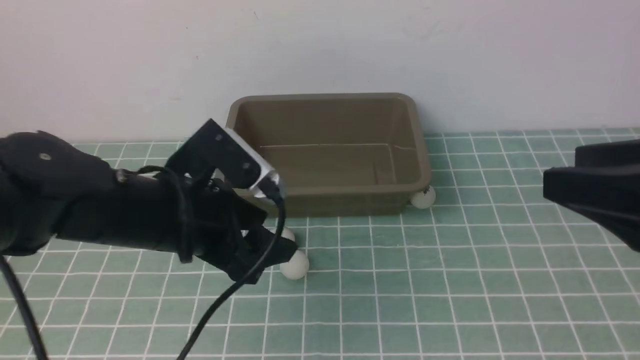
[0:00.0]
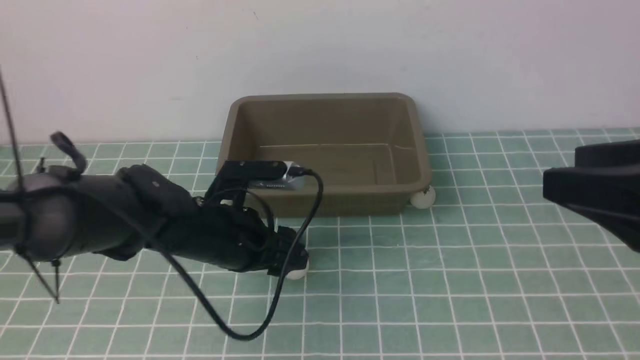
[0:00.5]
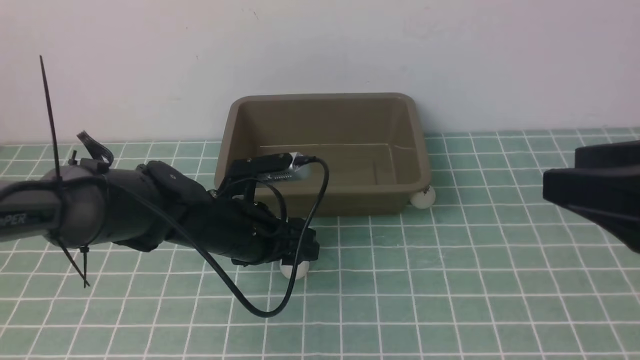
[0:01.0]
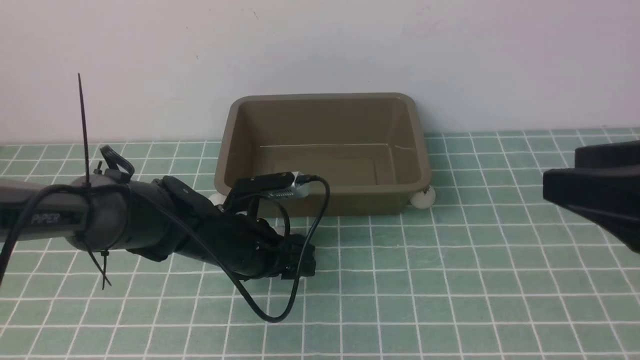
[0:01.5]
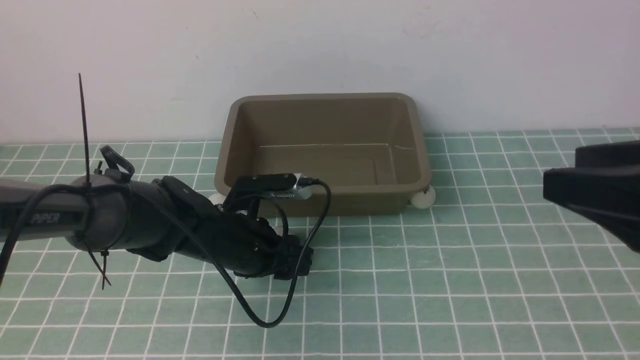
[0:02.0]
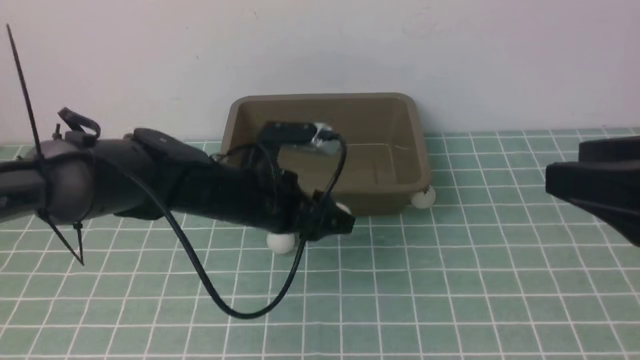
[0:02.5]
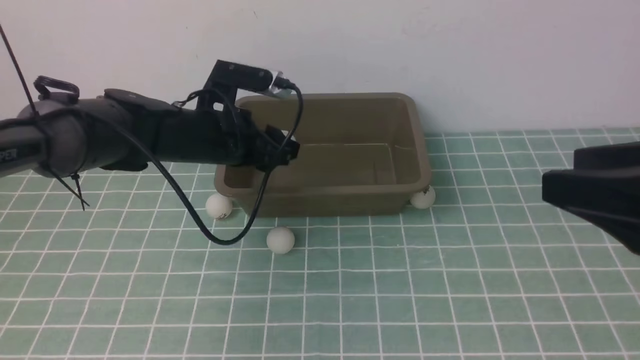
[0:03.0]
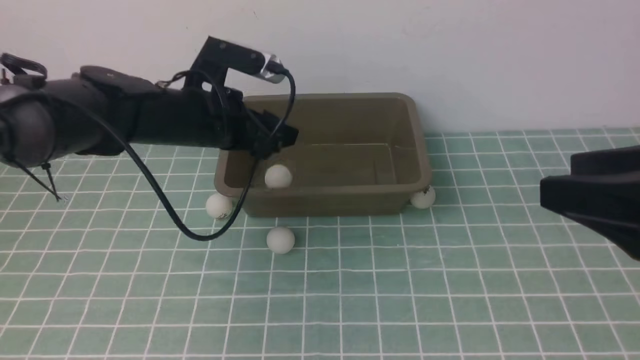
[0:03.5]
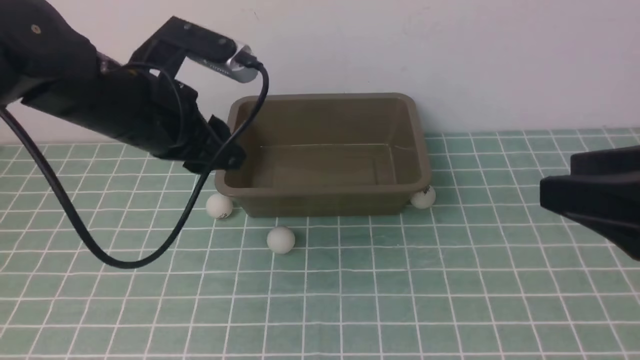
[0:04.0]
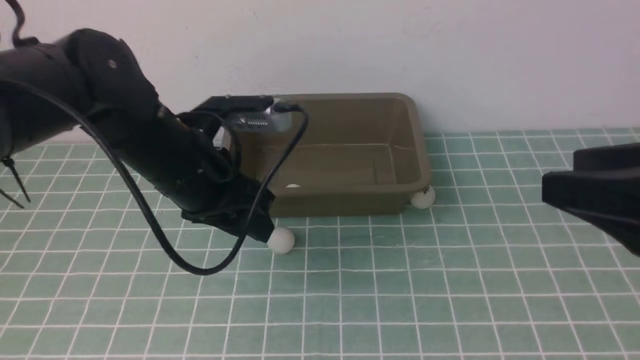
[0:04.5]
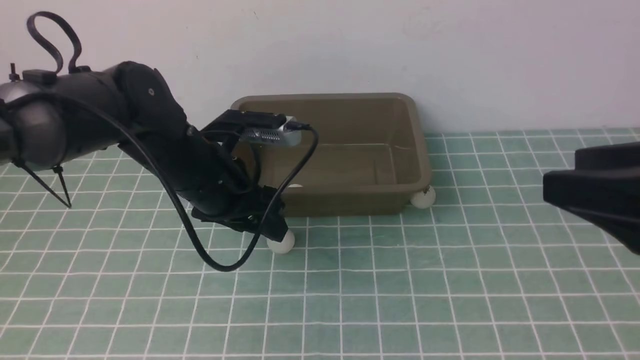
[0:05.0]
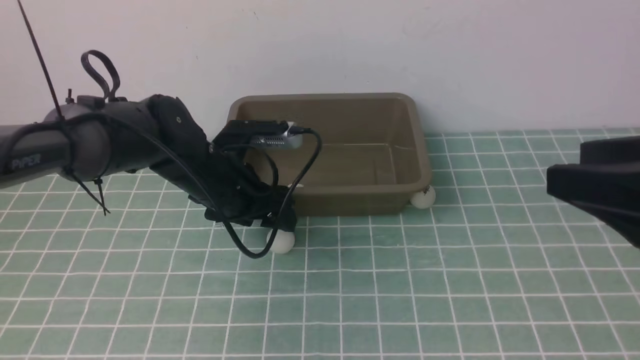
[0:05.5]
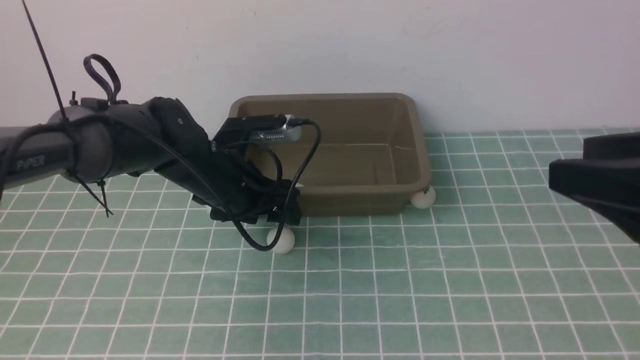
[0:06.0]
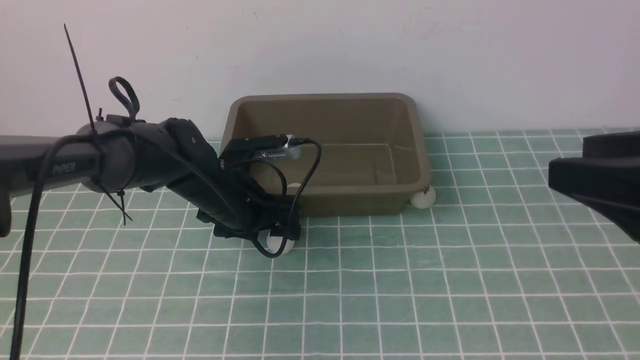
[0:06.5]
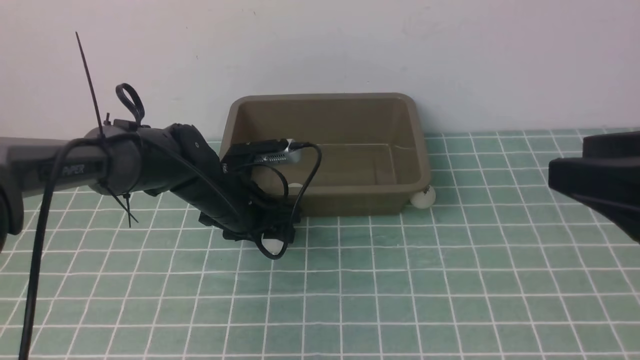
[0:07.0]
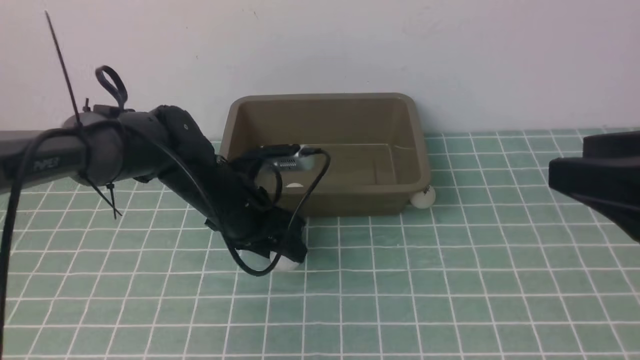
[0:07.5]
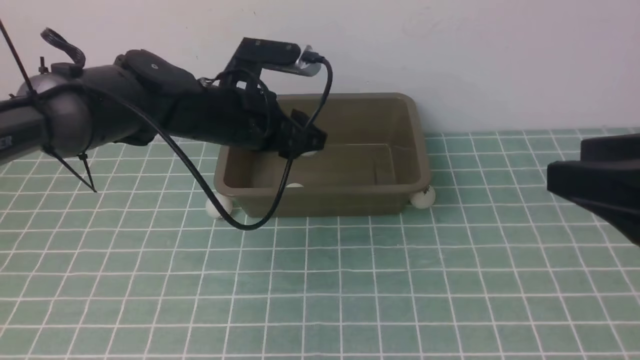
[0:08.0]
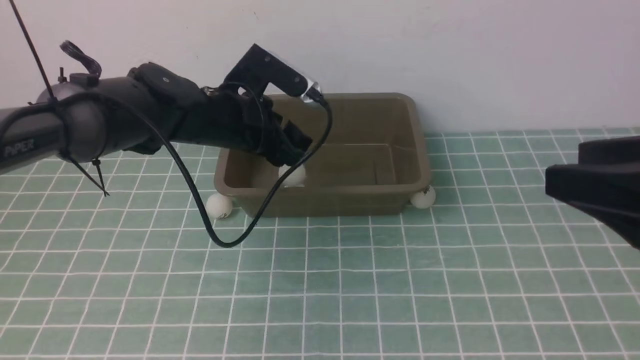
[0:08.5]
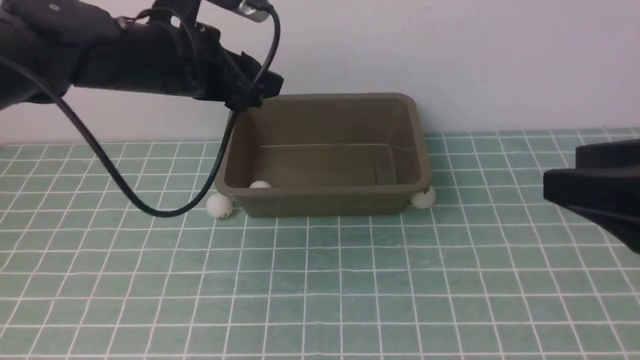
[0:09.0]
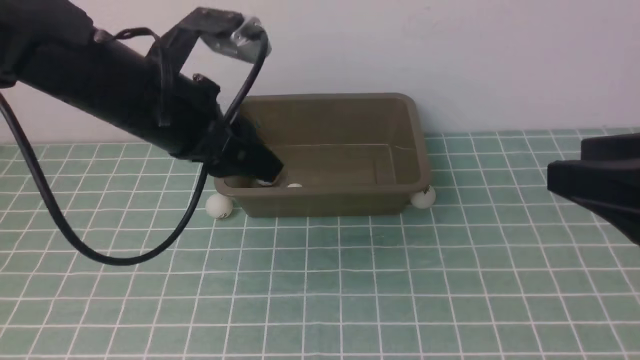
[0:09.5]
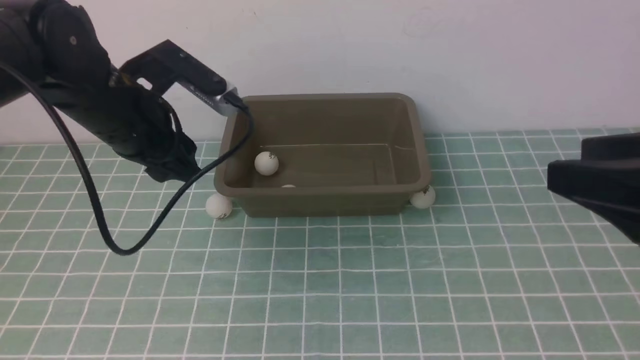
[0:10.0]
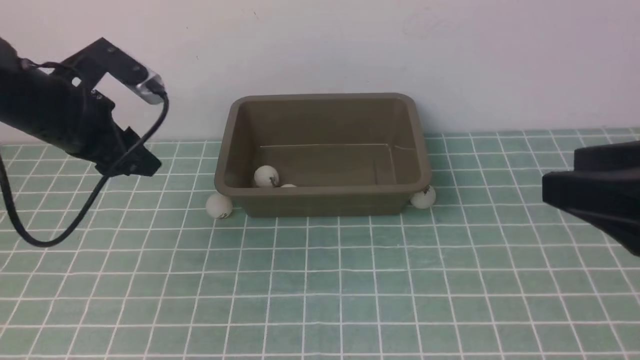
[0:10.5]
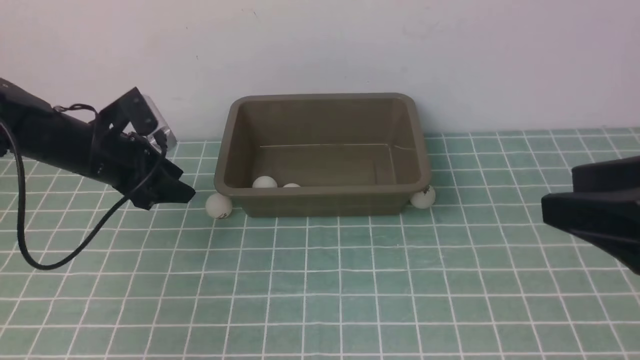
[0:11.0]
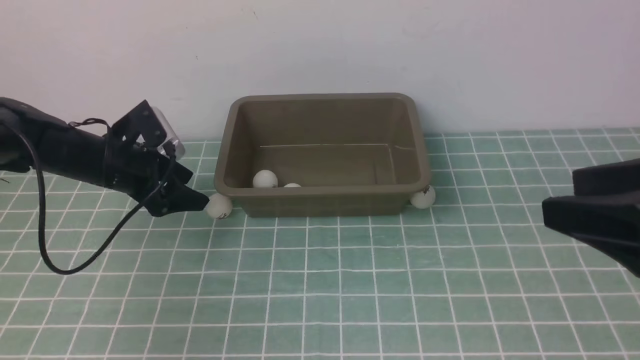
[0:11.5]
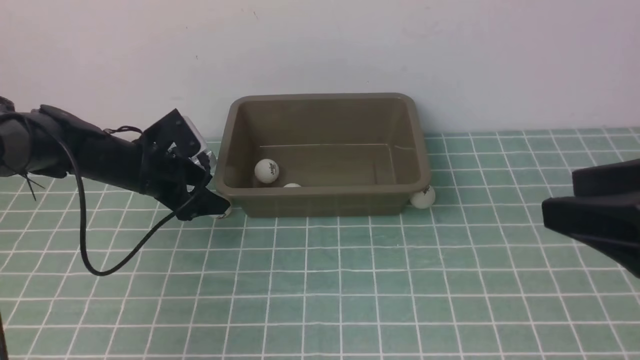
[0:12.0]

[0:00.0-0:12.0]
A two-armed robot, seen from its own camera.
Step, 0:00.0 to 0:02.0: use the left arm to clamp the table tennis ball closest to it.
Step, 0:02.5 to 0:03.5: use the left arm to put the table tennis ball into the box.
0:00.0 to 0:02.0: The left gripper heads downward and forward, covering about 10 cm, and closes its fingers.
0:02.0 to 0:04.0: The left gripper travels upward by roughly 15 cm.
0:04.0 to 0:06.0: The left gripper heads downward and forward, covering approximately 10 cm, and opens up.
0:06.0 to 0:08.0: The left gripper shifts some 5 cm upward, and closes up.
0:08.0 to 0:10.0: The left gripper travels to the left by approximately 10 cm.
0:10.0 to 0:12.0: The left gripper goes some 15 cm downward and forward, and opens.

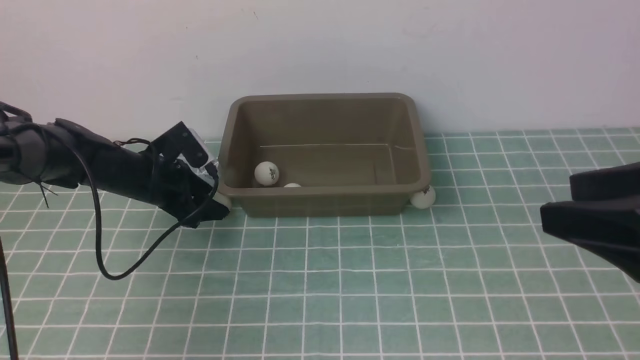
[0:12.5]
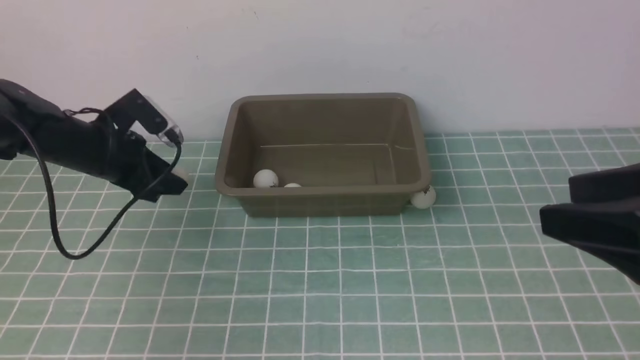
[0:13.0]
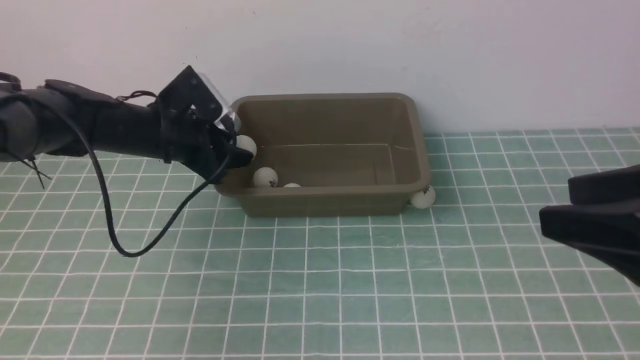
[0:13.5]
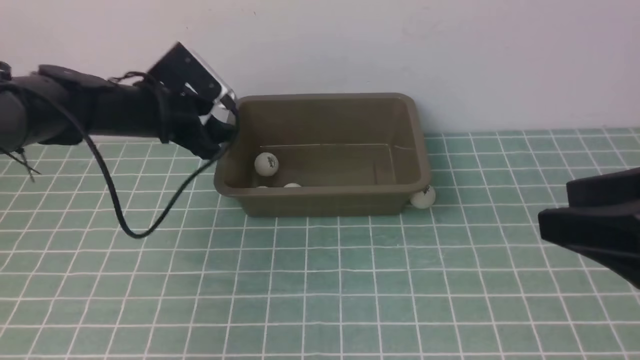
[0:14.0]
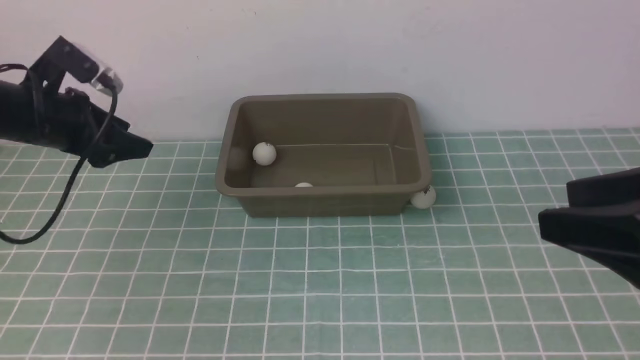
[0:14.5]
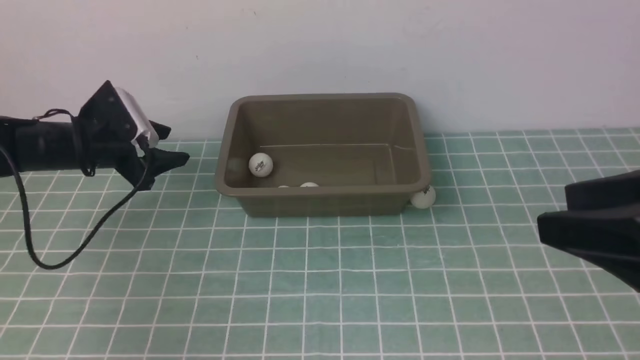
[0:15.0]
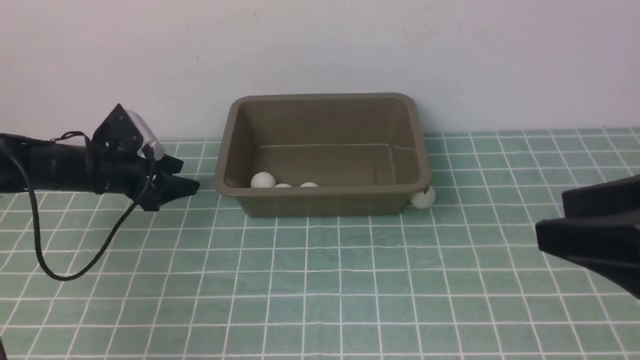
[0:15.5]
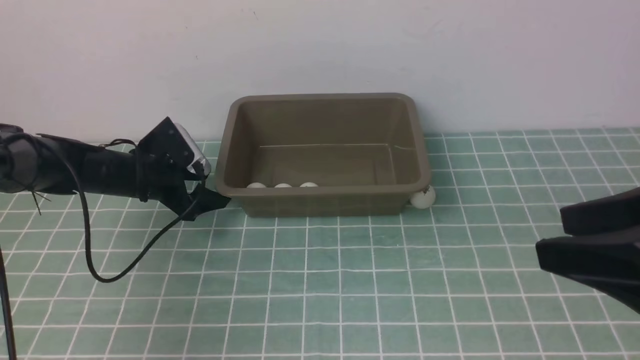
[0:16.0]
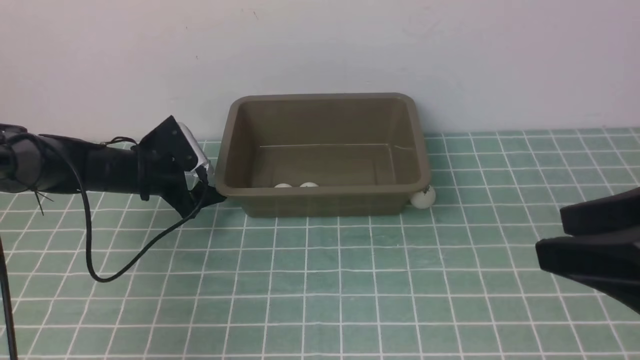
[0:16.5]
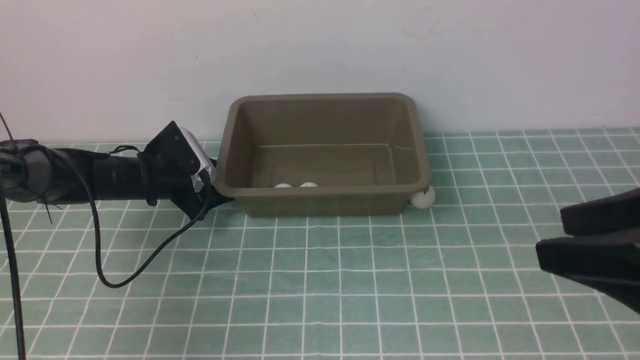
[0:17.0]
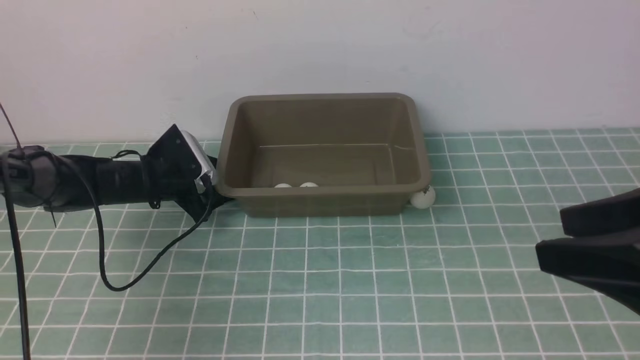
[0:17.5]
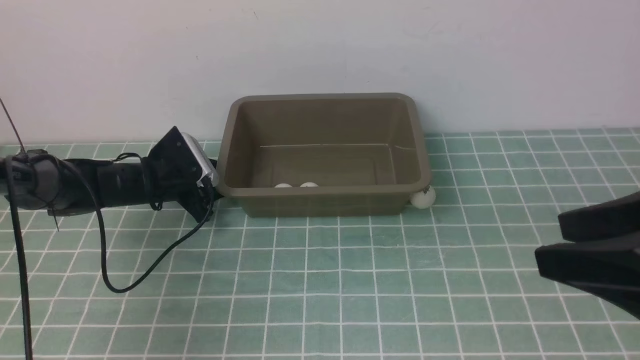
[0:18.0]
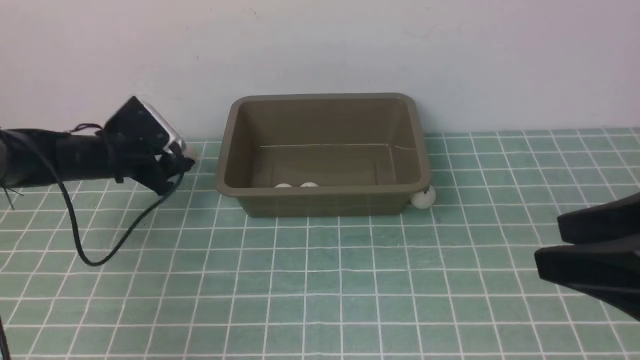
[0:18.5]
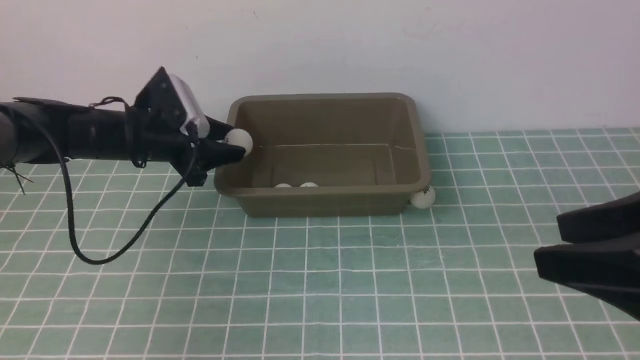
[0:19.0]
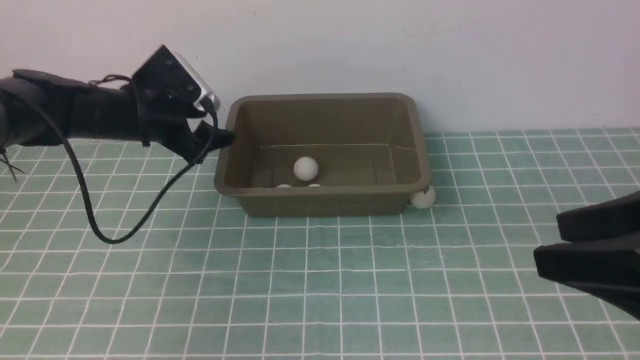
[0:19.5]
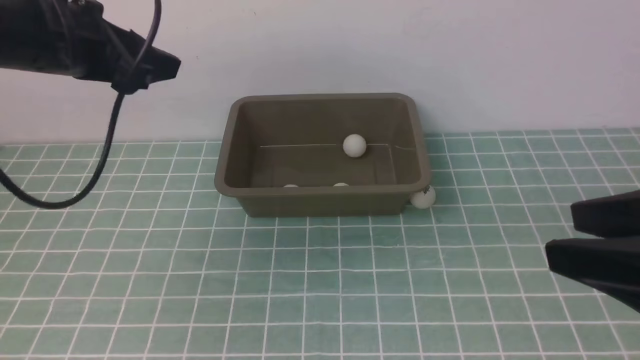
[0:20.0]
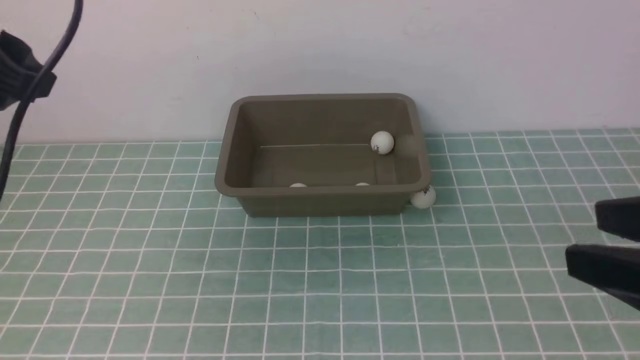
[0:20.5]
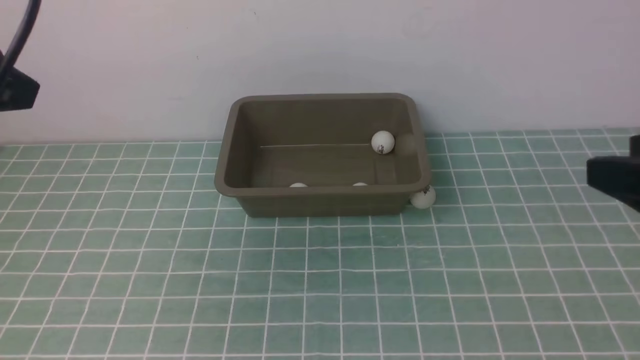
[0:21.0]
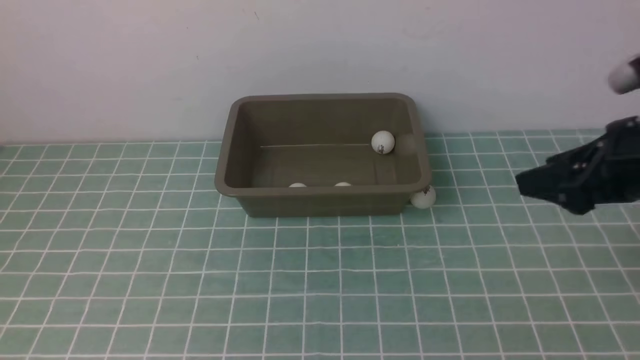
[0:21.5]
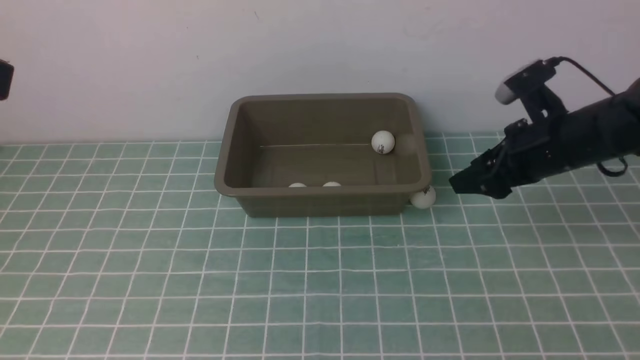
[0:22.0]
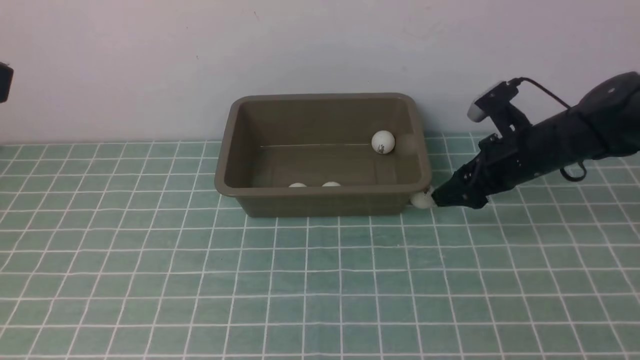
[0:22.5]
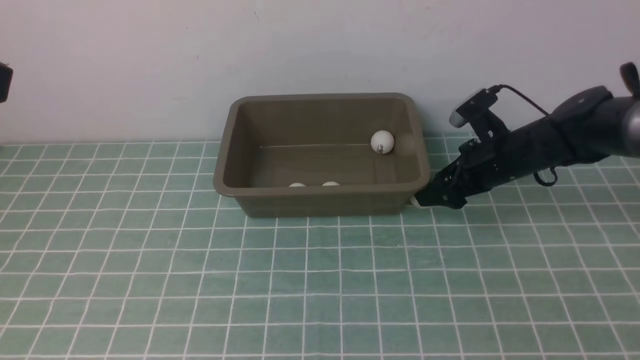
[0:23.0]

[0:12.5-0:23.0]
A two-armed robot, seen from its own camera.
Step, 0:13.5 to 0:14.0: use the left arm to put the table tennis ball into the box.
Step, 0:14.5 to 0:18.5: use the left arm to clamp the table tennis ball closest to it.
Step, 0:19.0 to 0:19.5: use the left arm to put the table tennis ball into the box.
0:12.5 to 0:14.5: The left gripper heads upward and to the left, covering some 10 cm, and opens up.
0:14.5 to 0:16.5: The left gripper shifts approximately 10 cm downward and to the right, and opens.
0:16.5 to 0:19.0: The left gripper moves upward, roughly 10 cm, and closes.
0:19.0 to 0:21.0: The left gripper is displaced upward and backward by about 35 cm.
0:21.0 to 0:23.0: The left gripper shifts approximately 5 cm backward, while the right gripper is displaced forward and downward by about 30 cm, and opens up.
